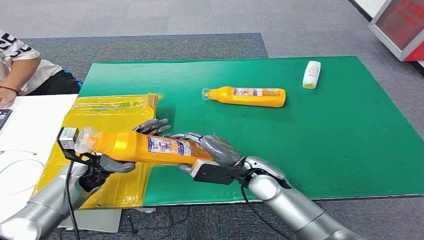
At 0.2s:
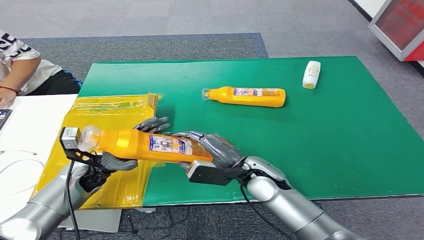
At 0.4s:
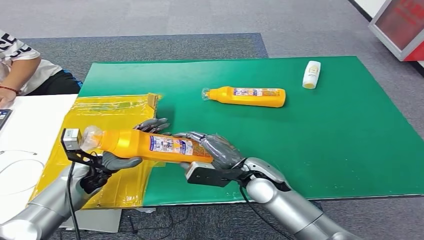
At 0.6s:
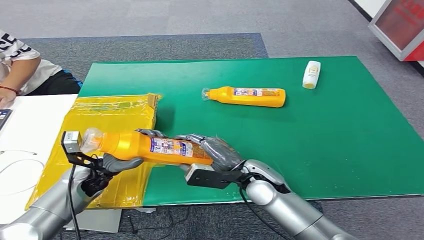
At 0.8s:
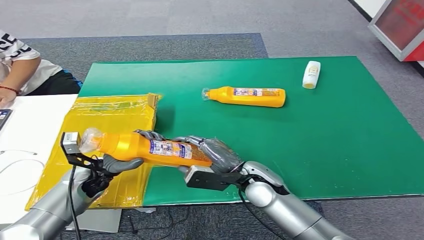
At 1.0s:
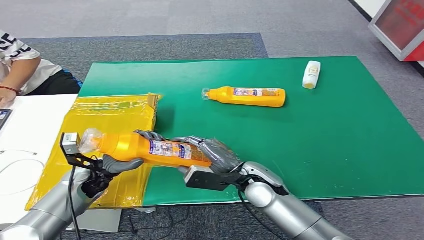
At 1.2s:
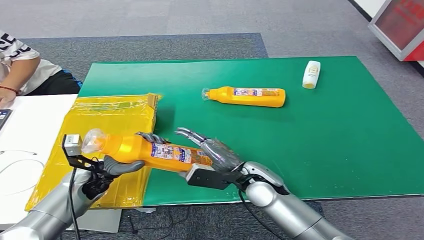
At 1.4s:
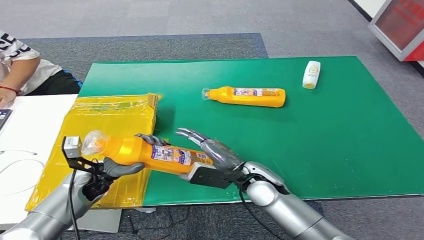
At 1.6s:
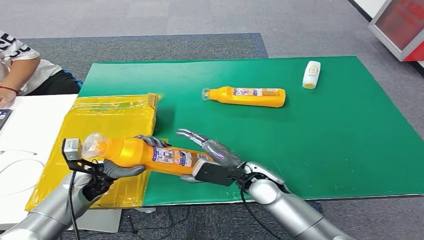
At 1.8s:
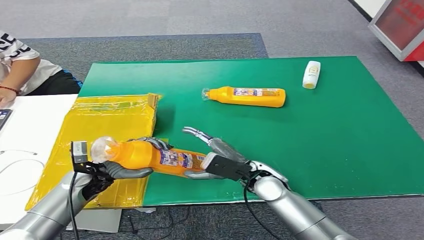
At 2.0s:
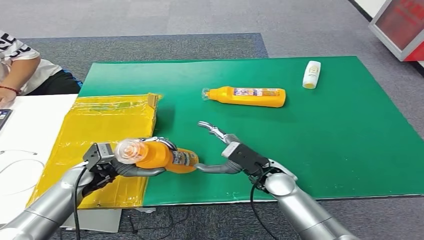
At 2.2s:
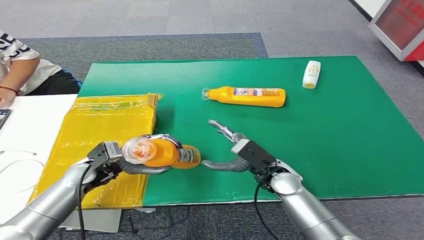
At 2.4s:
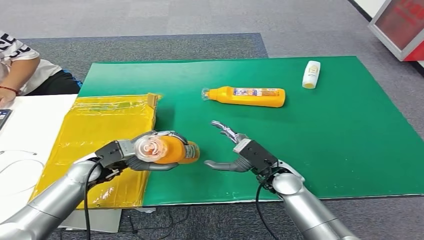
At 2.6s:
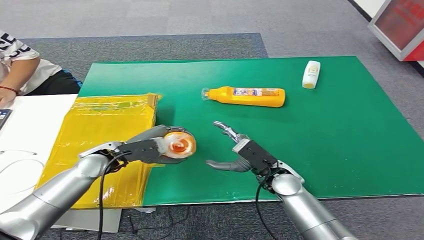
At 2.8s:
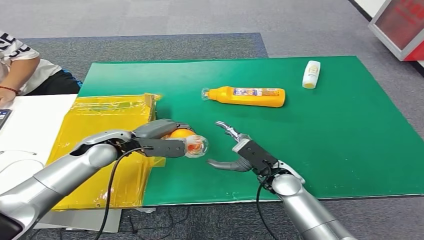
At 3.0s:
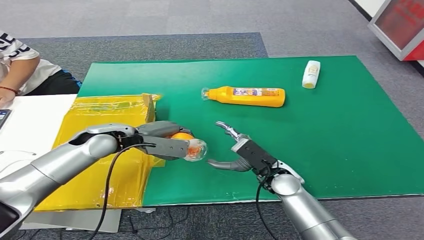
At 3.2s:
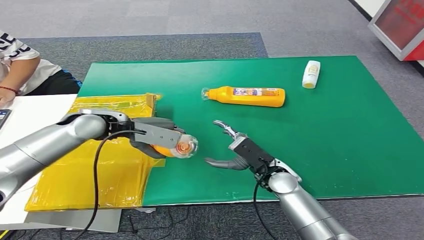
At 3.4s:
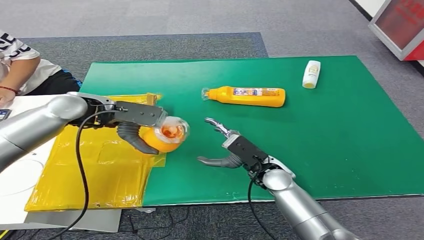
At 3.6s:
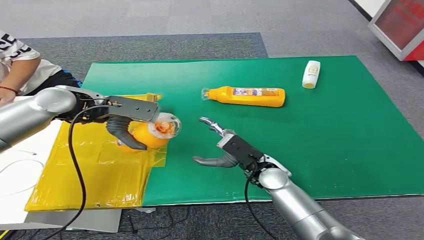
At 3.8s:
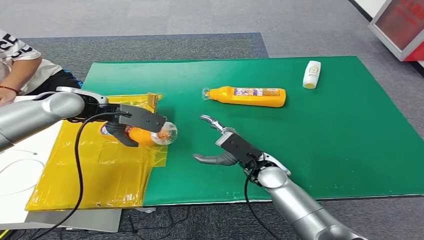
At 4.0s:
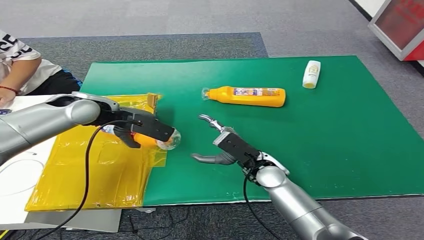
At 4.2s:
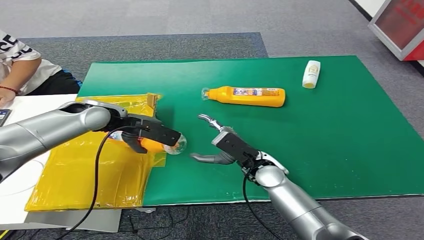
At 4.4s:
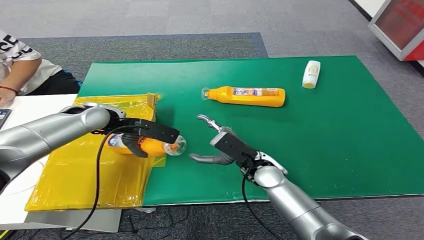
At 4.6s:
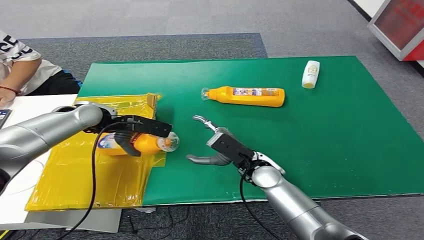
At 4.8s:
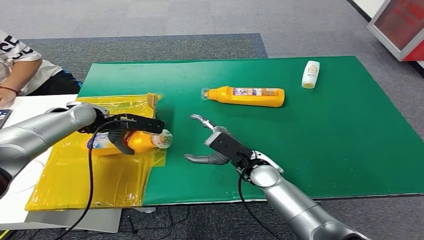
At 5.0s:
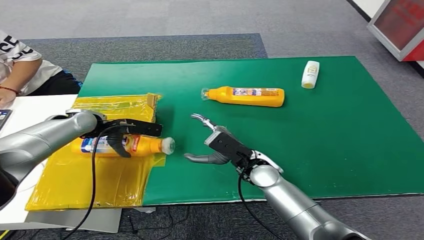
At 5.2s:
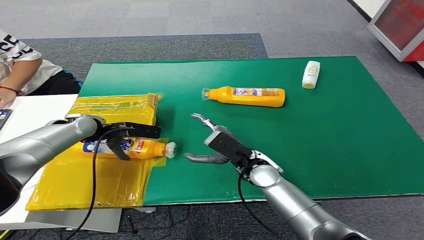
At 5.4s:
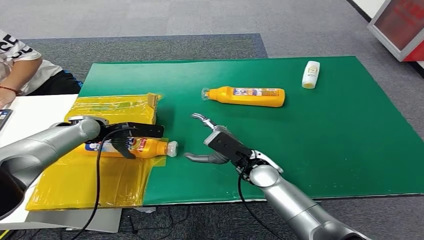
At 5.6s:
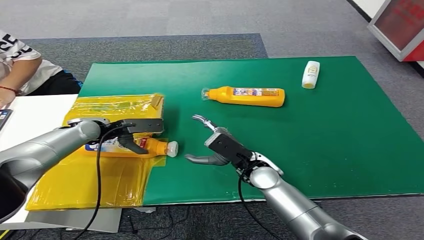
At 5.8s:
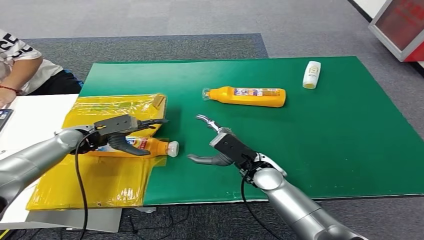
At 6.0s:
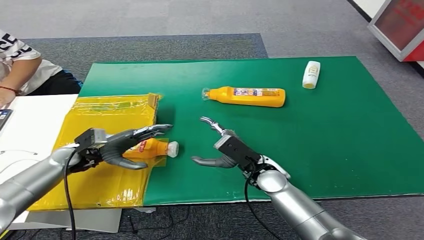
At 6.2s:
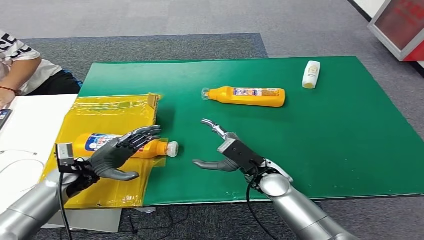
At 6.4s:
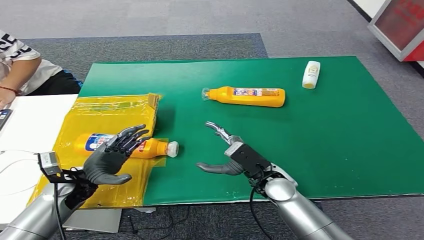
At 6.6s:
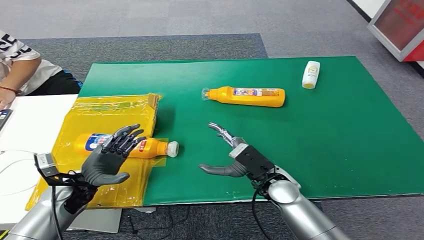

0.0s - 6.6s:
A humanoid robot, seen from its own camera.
Step, 0.0s - 6.6s: Turn the bottle to the front side.
0.0s - 1.6s: The hands make only small movements.
1.6s - 3.2s: The right hand shifts by roughly 5 cm; the left hand heads upward and forward, covering some 20 cm.
5.0s - 6.6s: The left hand goes approximately 20 cm backward and downward, while the right hand shifts by some 5 cm.
